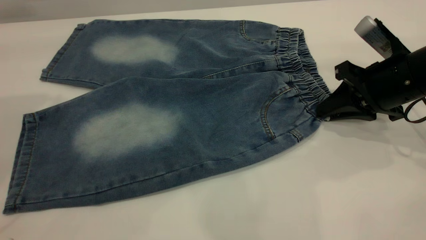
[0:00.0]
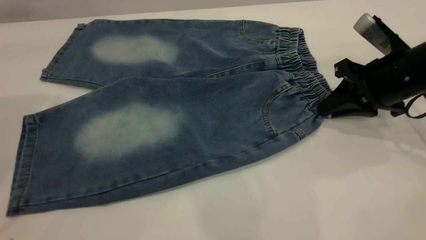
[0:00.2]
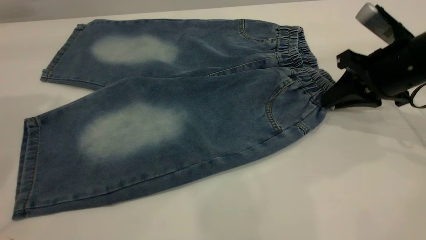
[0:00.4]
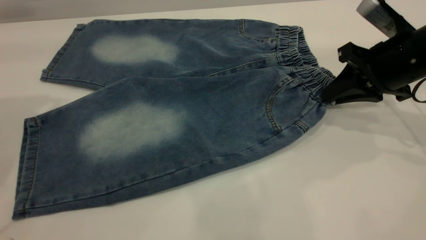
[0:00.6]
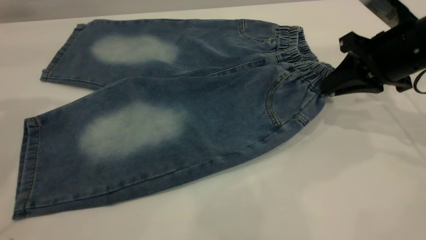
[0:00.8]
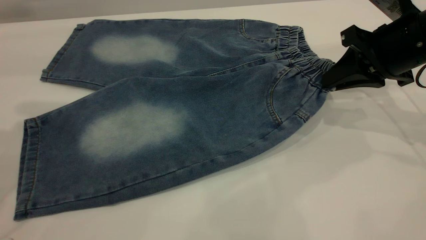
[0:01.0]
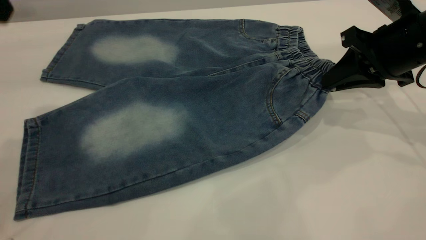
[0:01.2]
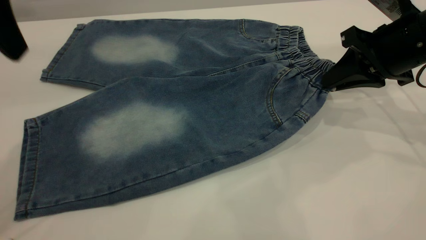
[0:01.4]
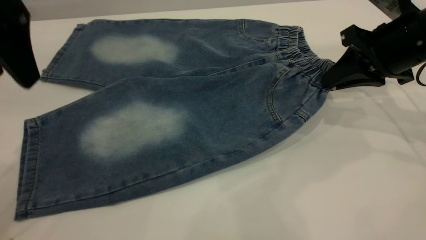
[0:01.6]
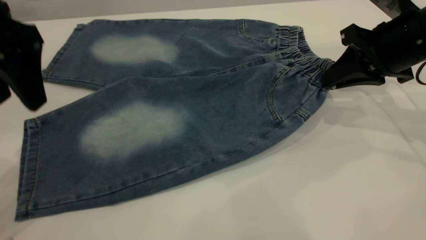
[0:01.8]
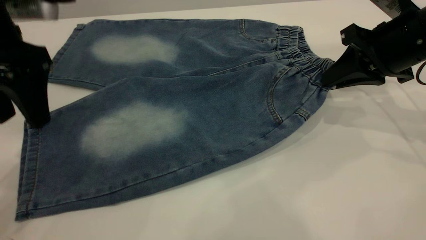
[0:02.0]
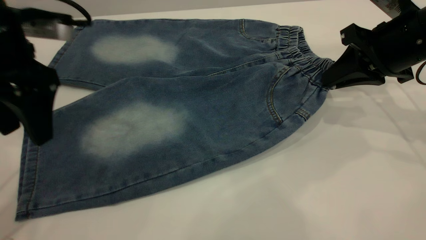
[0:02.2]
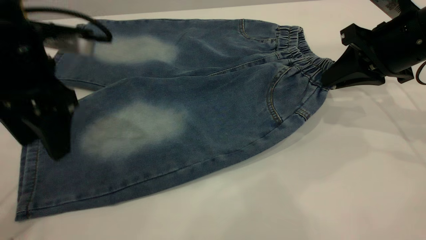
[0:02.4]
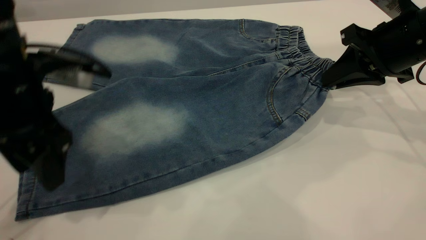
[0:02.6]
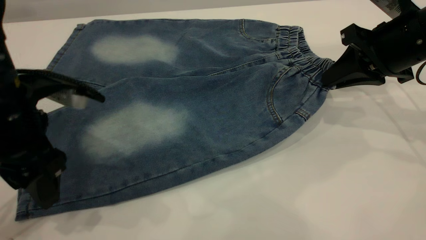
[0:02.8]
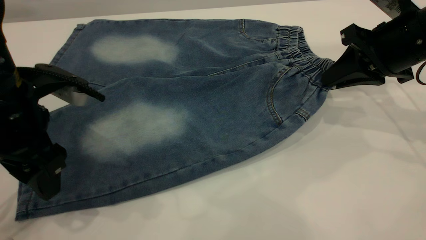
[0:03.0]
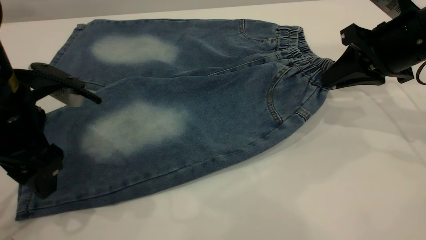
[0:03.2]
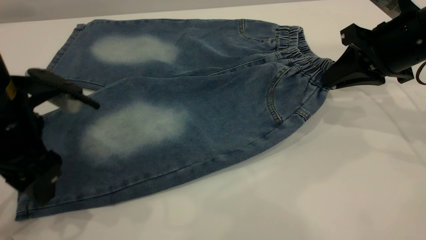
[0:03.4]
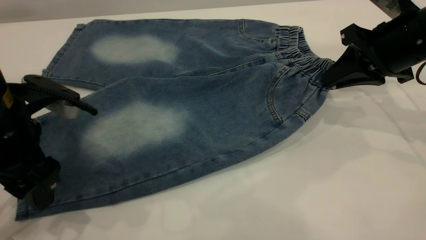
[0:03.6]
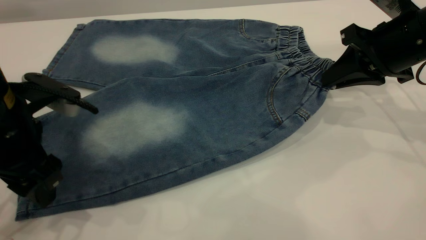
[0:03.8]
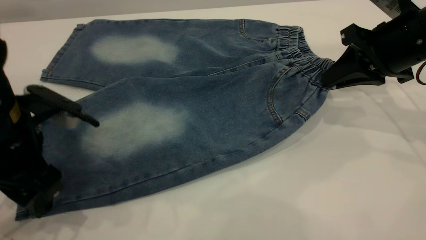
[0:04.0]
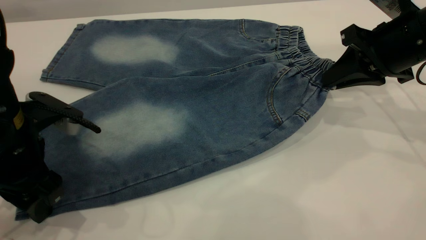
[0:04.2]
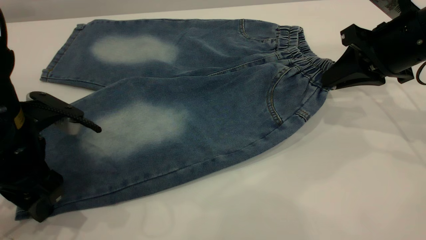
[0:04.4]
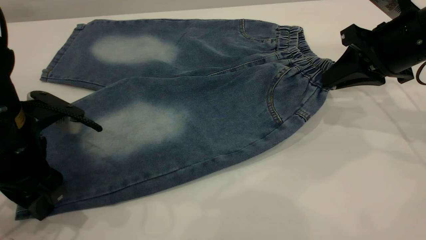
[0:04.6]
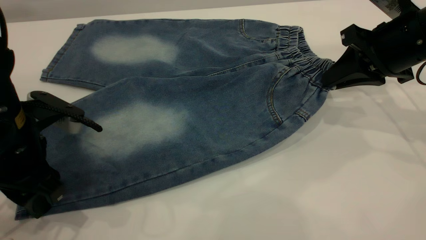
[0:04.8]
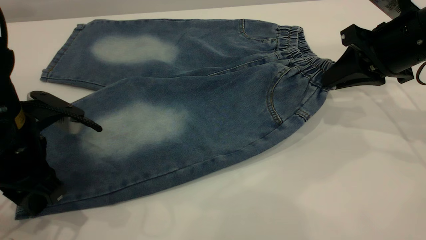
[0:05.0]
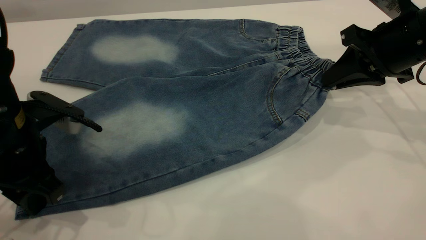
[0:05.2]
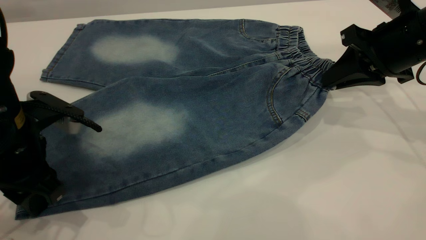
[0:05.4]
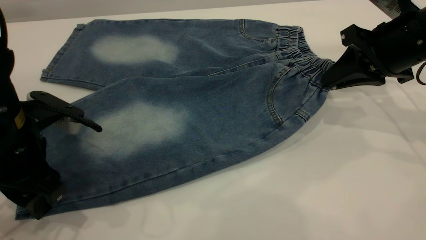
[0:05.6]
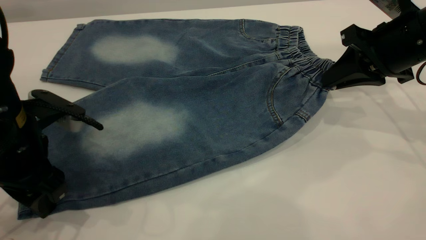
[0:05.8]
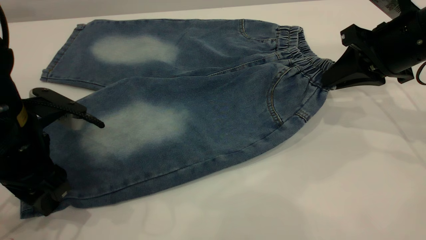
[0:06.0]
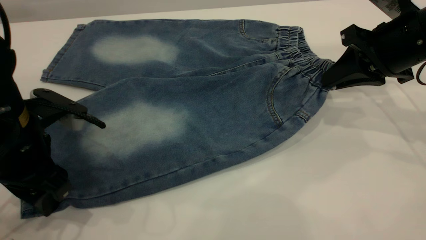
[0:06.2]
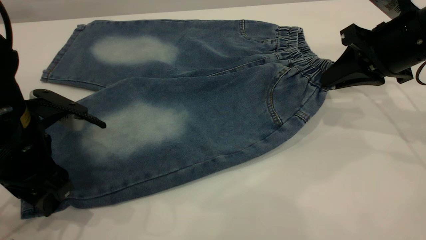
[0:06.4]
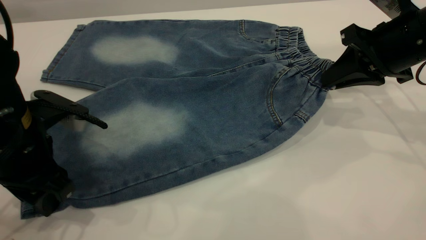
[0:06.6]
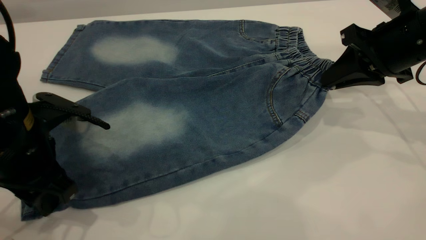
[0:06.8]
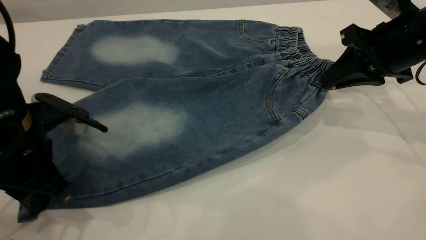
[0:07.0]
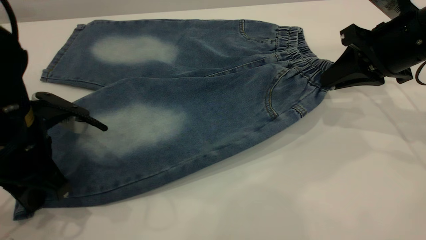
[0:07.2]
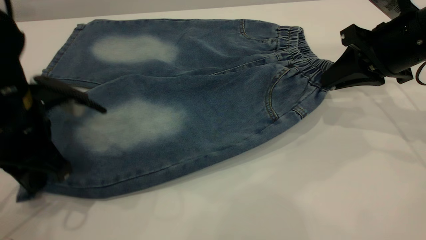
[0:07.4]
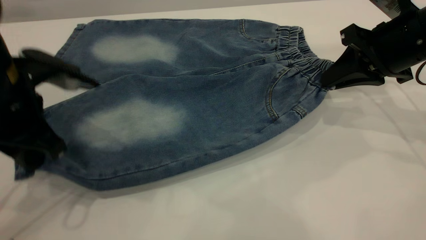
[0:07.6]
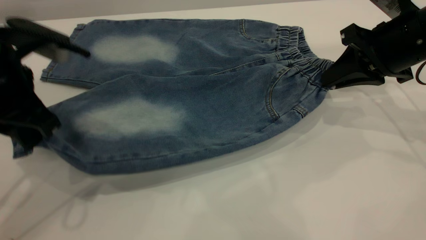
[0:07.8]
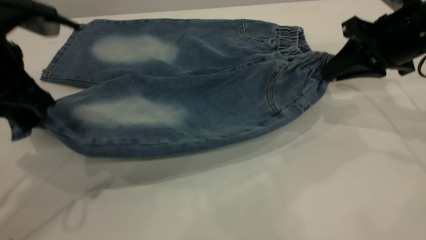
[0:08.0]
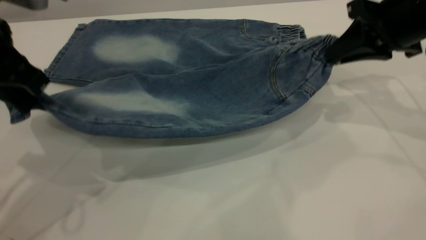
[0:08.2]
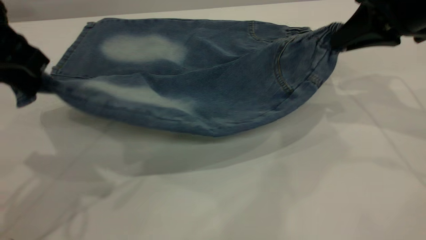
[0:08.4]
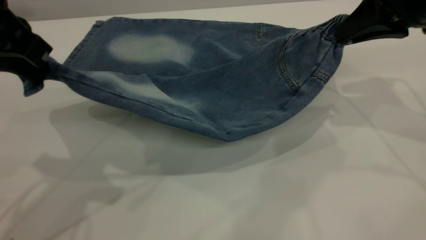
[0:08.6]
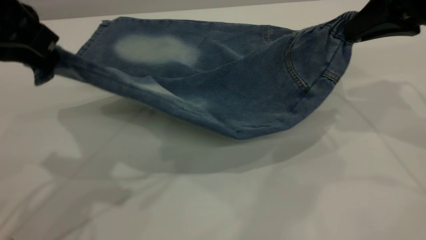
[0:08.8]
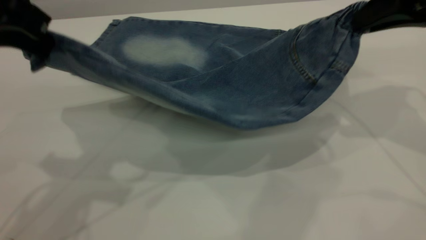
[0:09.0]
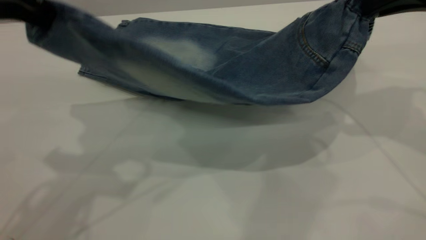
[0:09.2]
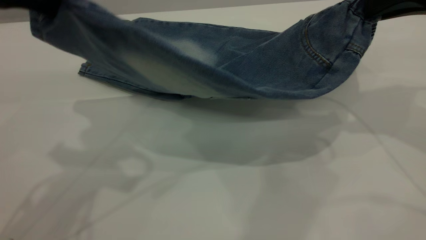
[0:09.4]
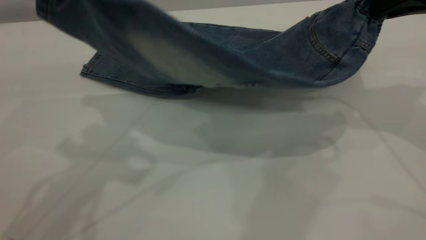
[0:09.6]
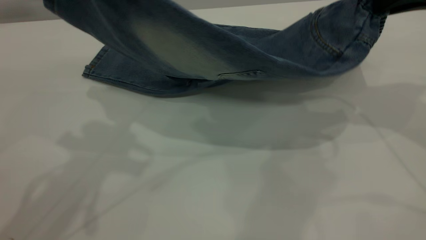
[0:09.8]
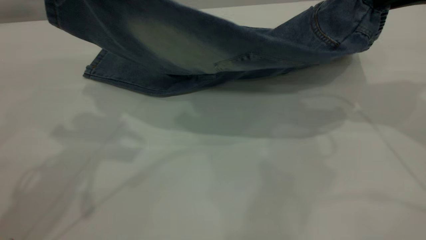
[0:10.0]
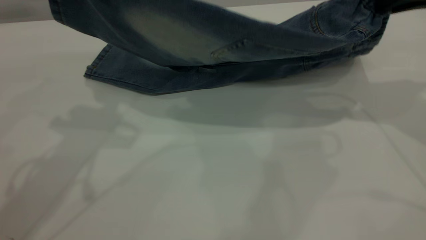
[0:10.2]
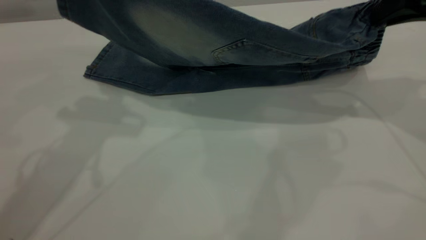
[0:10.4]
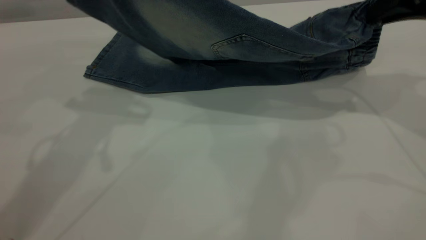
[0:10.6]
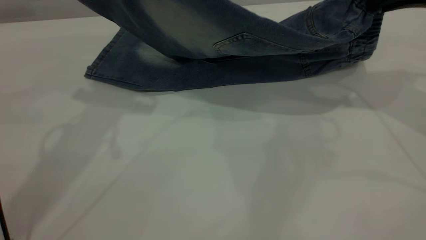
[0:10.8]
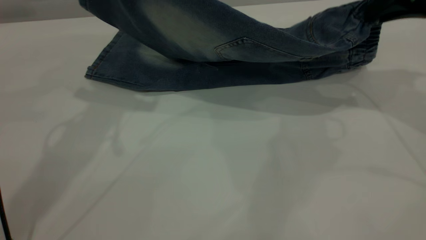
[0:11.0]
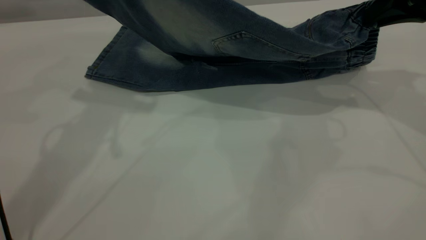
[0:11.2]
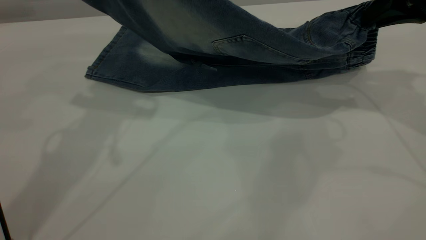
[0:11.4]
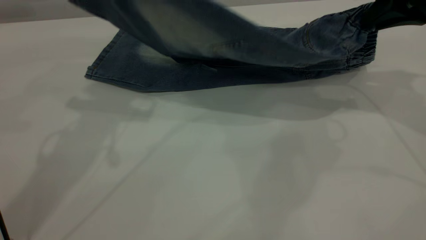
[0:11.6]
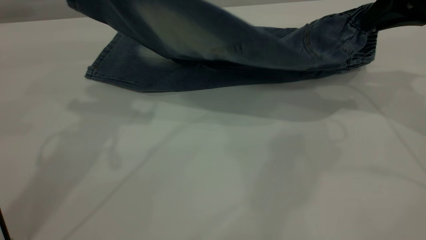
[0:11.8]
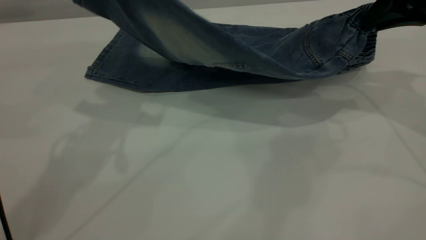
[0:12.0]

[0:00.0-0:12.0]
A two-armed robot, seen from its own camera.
0:00.0 to 0:01.6: The right gripper goes approximately 5 cm upward; the left gripper shifts approximately 10 cm downward and to the right.
0:01.6 to 0:03.0: The left gripper heads downward, covering approximately 10 cm.
0:03.0 to 0:04.4: The grippers move only a little.
0:04.4 to 0:06.0: The left gripper closes, then reopens.
0:06.0 to 0:07.6: The left gripper heads upward, covering some 5 cm, and closes its fingers.
0:07.6 to 0:09.0: Both grippers travel together upward, approximately 10 cm.
0:09.0 to 0:10.4: The left gripper is displaced forward by roughly 10 cm.
0:10.4 to 0:12.0: The grippers stay close to where they were, moving slightly.

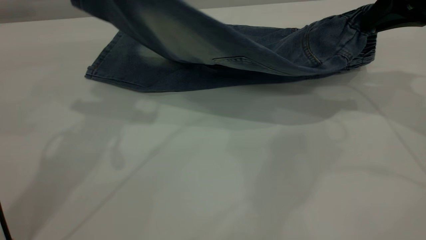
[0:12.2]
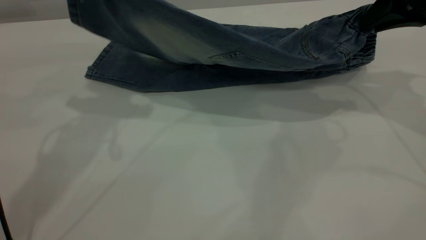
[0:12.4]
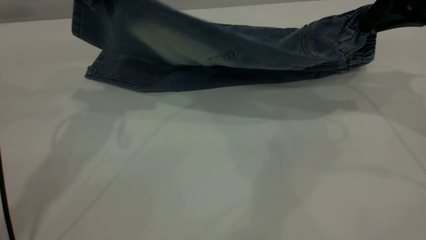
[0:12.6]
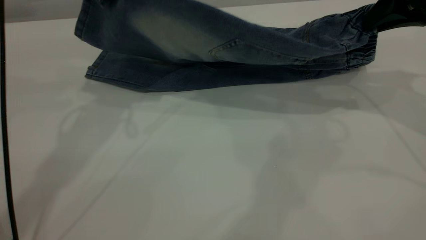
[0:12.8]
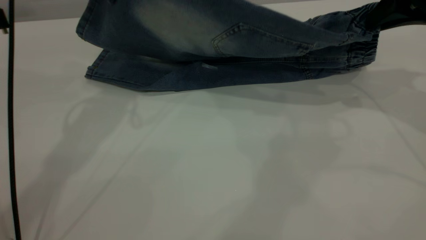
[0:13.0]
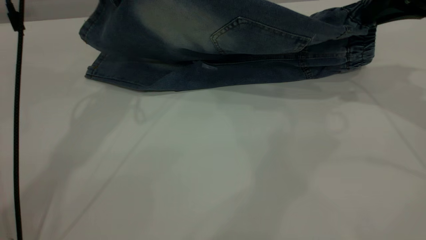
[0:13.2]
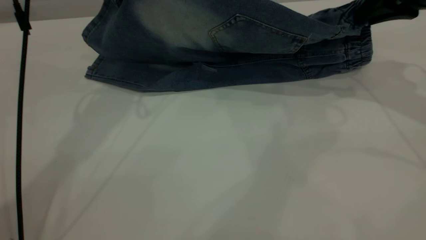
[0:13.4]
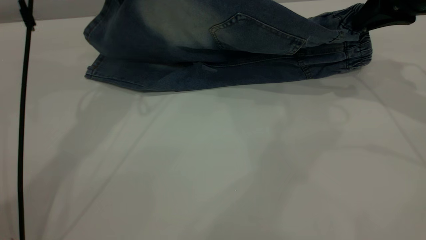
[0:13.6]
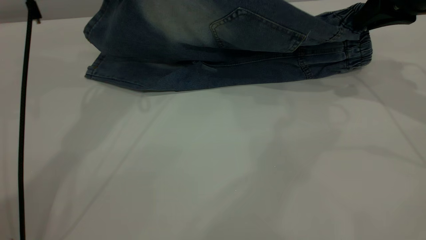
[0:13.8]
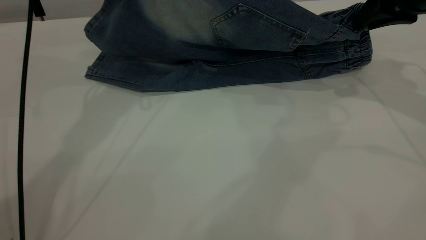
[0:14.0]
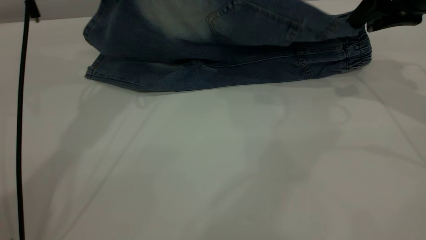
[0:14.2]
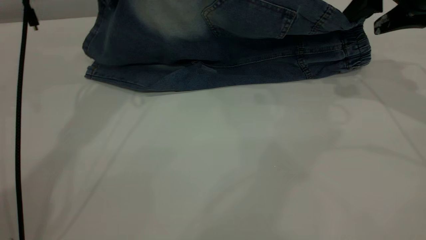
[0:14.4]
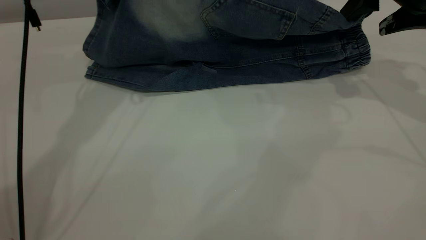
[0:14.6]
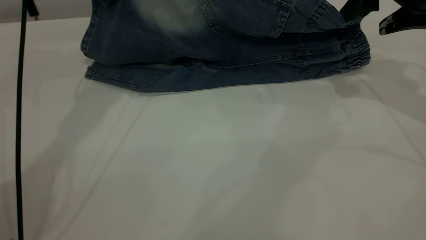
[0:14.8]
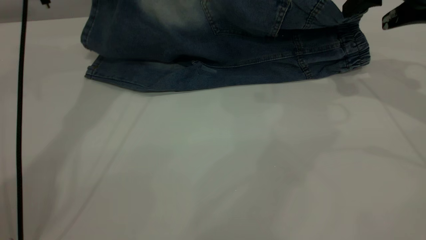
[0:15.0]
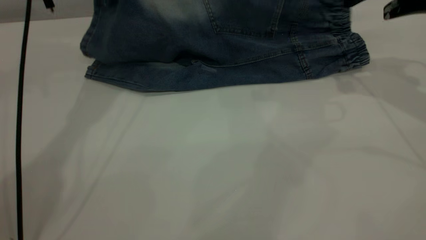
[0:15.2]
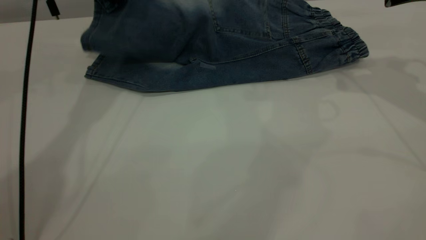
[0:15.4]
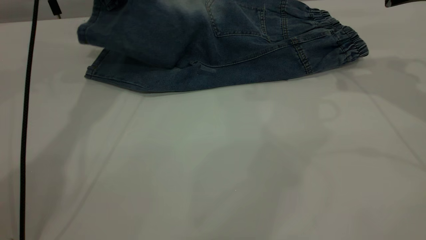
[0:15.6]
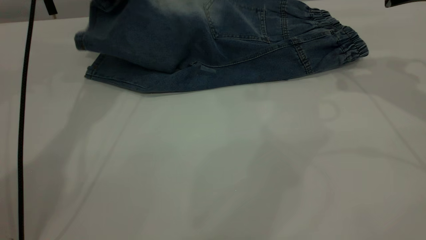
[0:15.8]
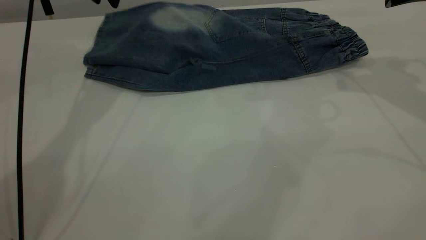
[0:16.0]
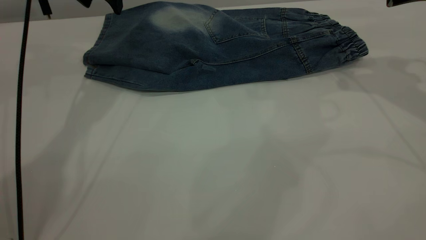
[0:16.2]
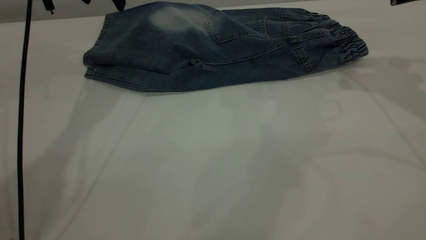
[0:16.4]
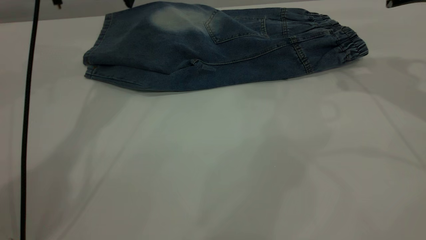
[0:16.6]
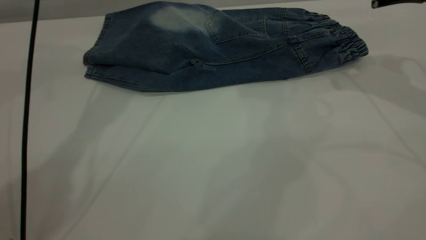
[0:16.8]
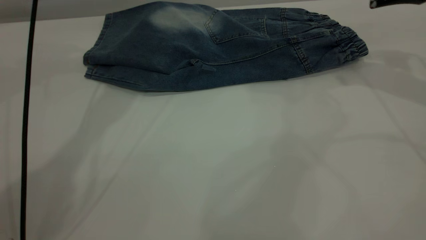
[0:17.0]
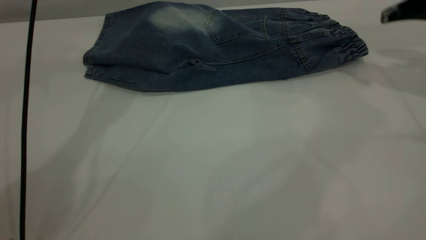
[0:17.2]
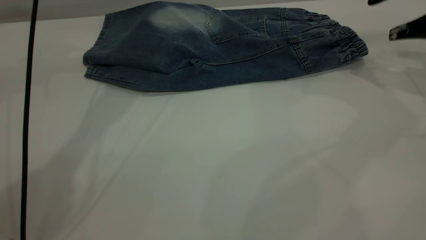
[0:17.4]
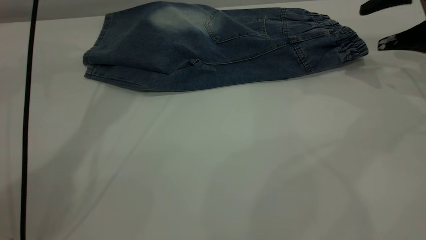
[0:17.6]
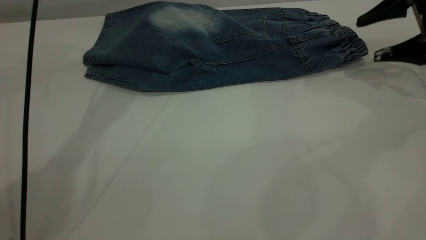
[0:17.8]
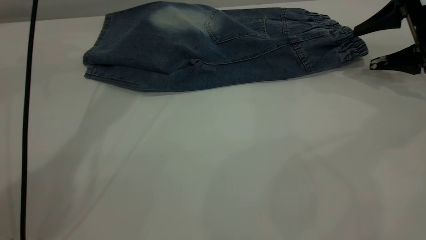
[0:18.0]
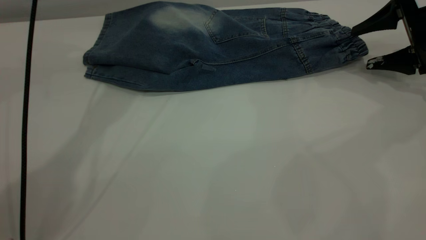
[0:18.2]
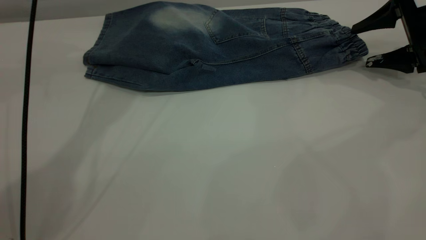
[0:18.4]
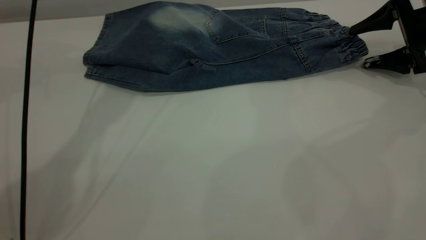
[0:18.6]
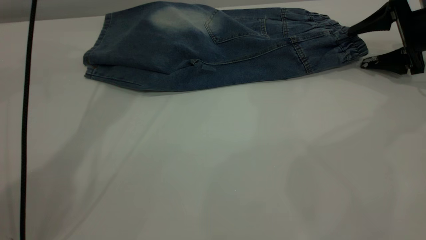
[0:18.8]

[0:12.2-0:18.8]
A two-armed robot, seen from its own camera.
Step, 0:12.2 to 0:16.8: Fold the bottom of the pants upward.
0:12.2 to 0:13.8: The left gripper travels forward by approximately 10 cm.
0:13.8 to 0:15.4: The left gripper changes place by roughly 5 cm, while the right gripper opens.
0:15.4 to 0:17.2: The right gripper travels to the right by some 5 cm. The left gripper moves approximately 5 cm, and opens up.
0:17.2 to 0:18.8: The right gripper shifts roughly 10 cm downward.
